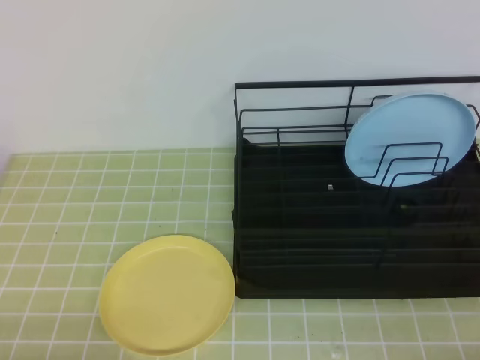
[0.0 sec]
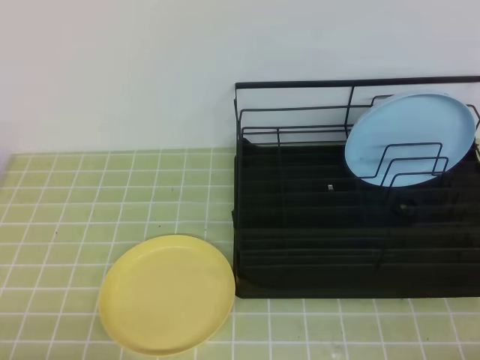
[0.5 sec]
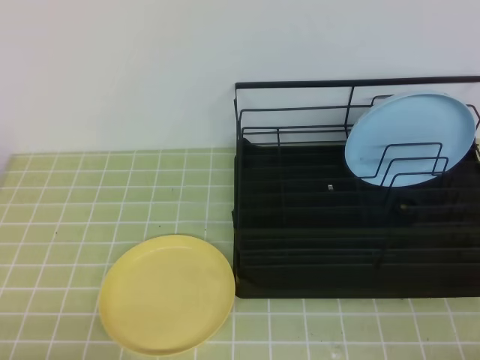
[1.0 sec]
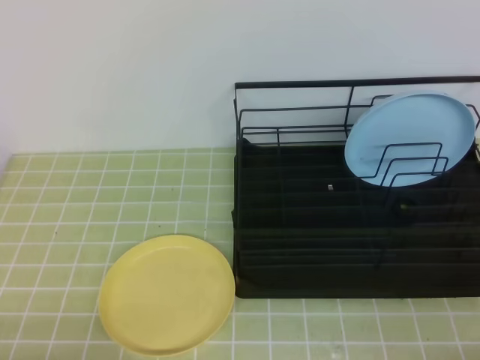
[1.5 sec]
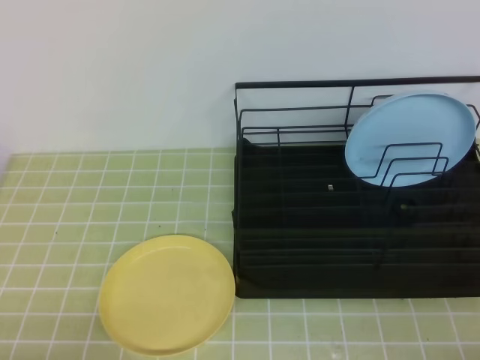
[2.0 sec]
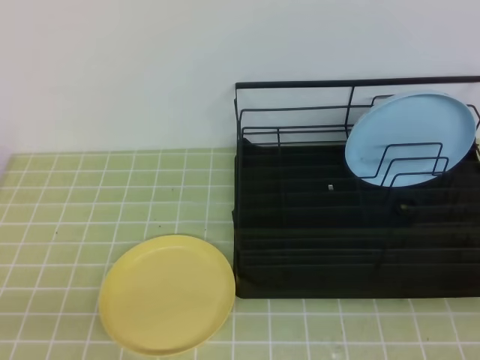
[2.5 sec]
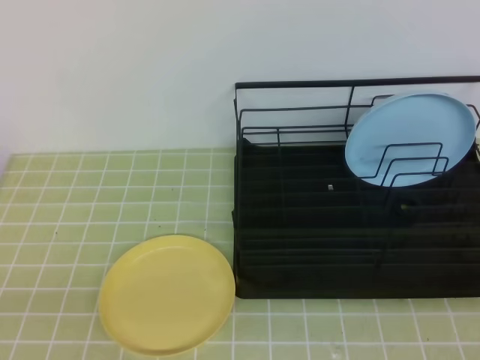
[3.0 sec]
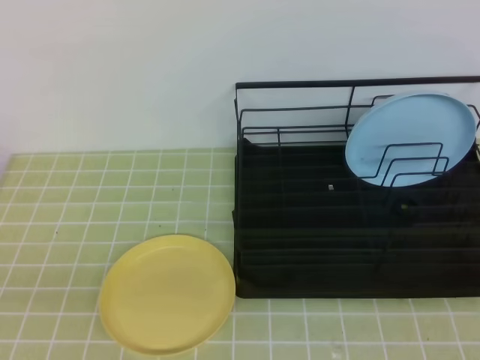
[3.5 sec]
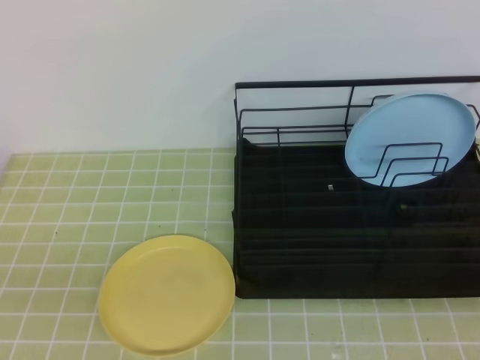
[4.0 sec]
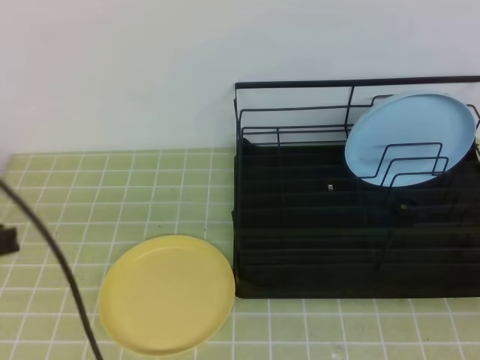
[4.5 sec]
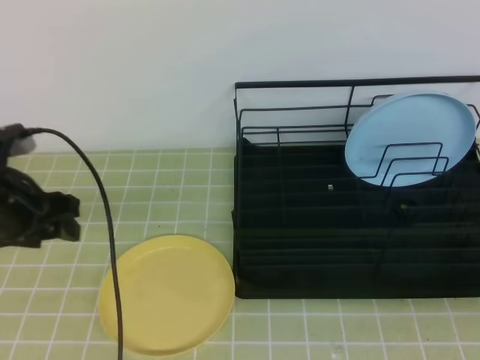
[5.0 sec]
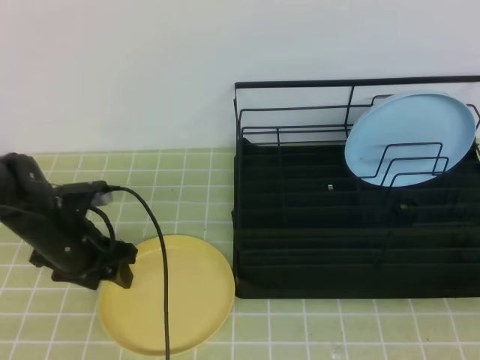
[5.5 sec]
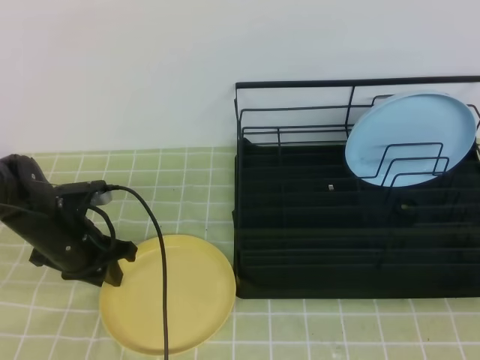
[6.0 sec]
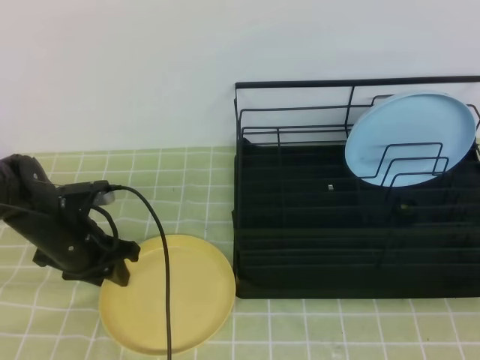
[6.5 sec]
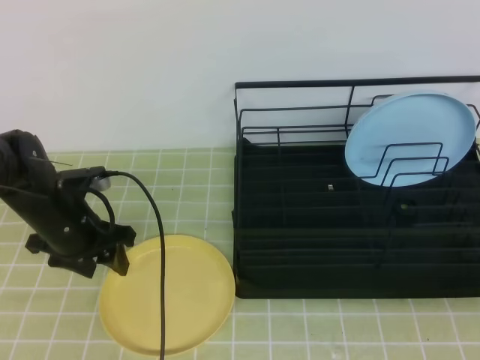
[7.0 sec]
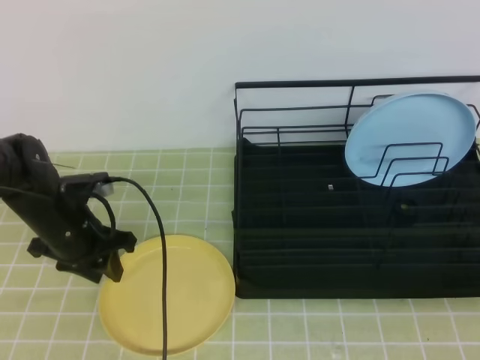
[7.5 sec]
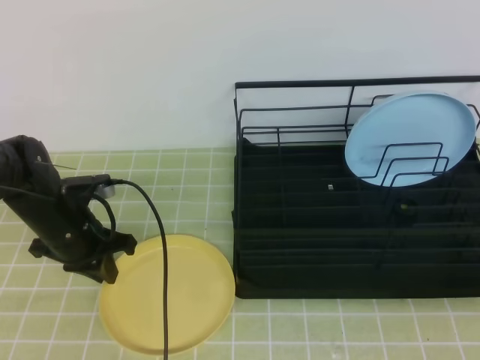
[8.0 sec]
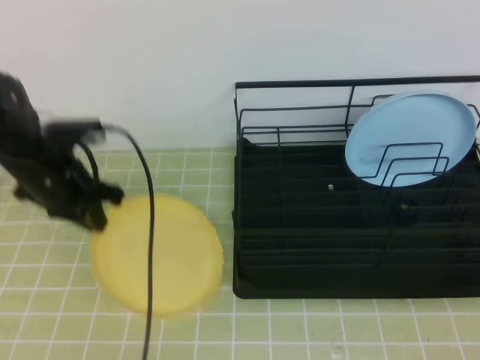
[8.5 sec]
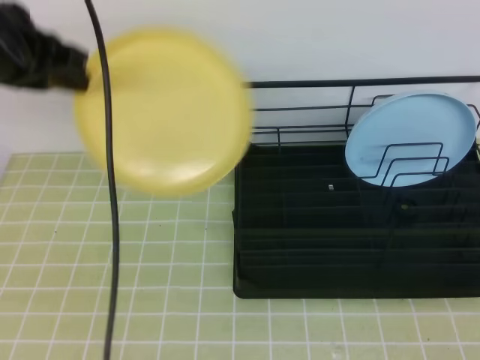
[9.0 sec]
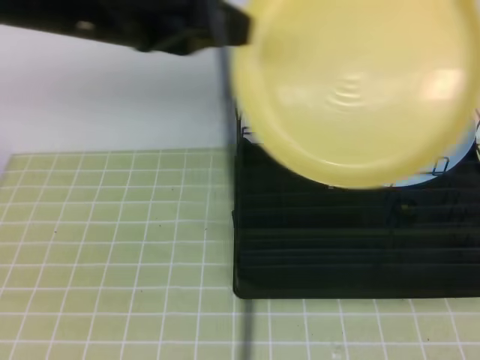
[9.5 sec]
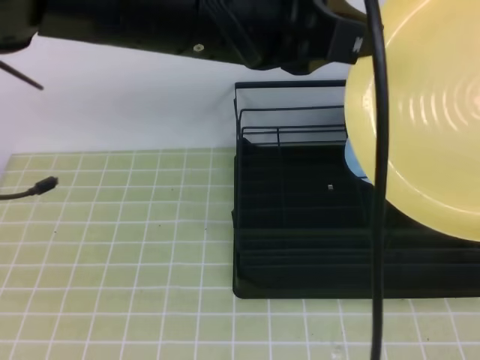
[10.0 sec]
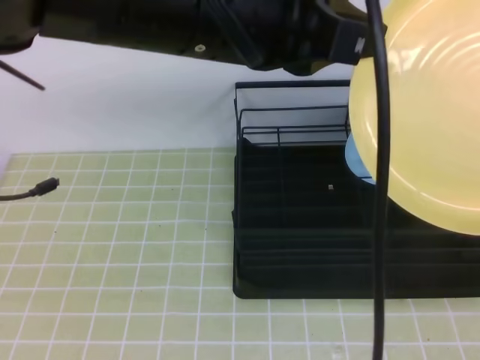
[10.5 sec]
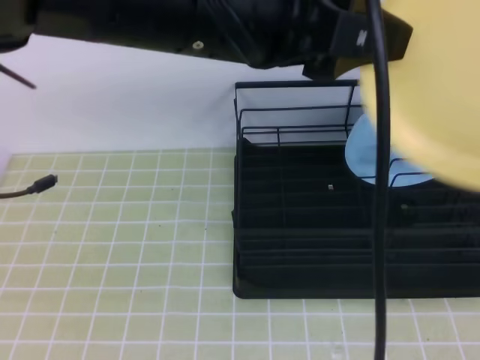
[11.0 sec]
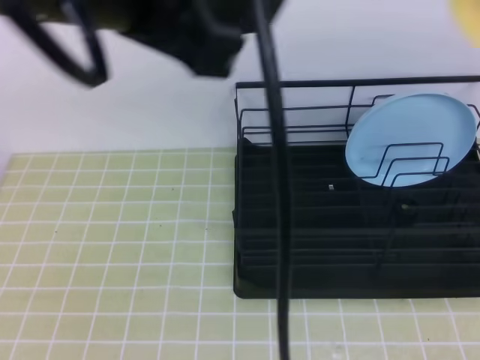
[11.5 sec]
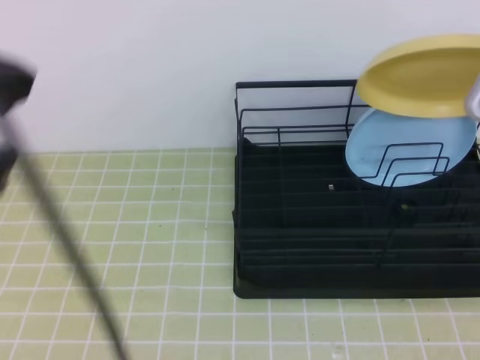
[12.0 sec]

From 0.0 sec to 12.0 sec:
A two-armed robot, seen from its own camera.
From 4.0 sec to 6.0 sec: The left gripper heads forward and downward, covering approximately 35 cm, and opens its fingers.
From 6.0 sec to 8.0 sec: The left gripper opens and closes again.
From 8.0 sec to 10.0 sec: The right gripper moves roughly 5 cm, and opens; the left gripper is displaced upward and to the right by approximately 35 cm.
From 10.0 sec to 12.0 sec: The left gripper goes approximately 20 cm to the left and backward, and opens, then closes once more; the right gripper travels forward by about 20 cm, and closes.

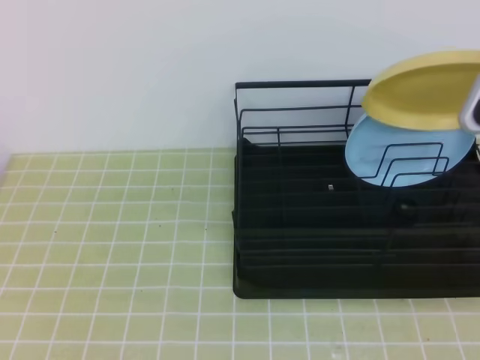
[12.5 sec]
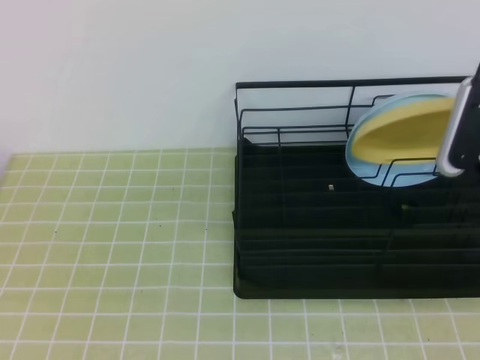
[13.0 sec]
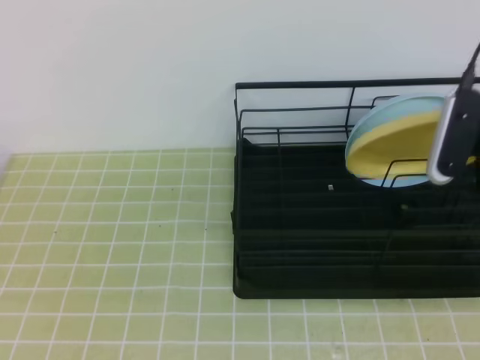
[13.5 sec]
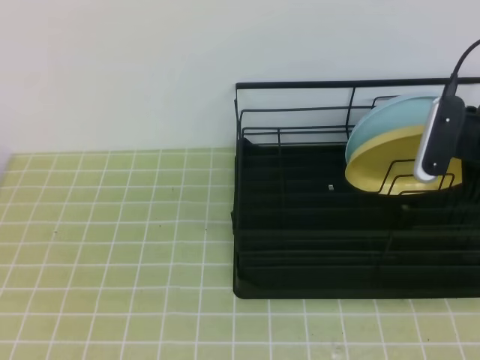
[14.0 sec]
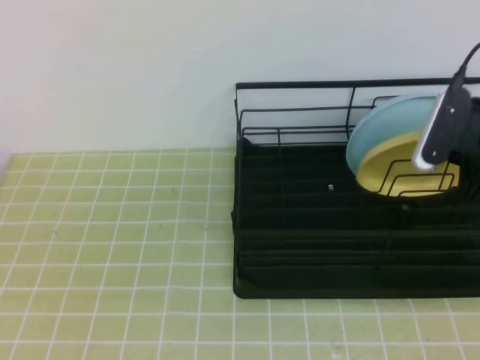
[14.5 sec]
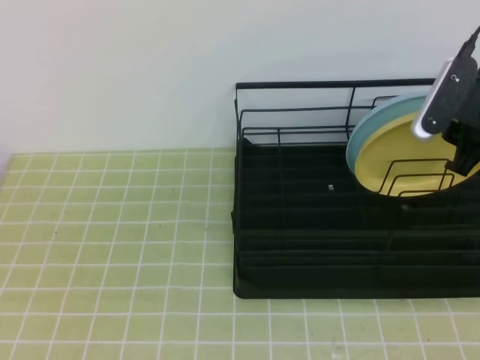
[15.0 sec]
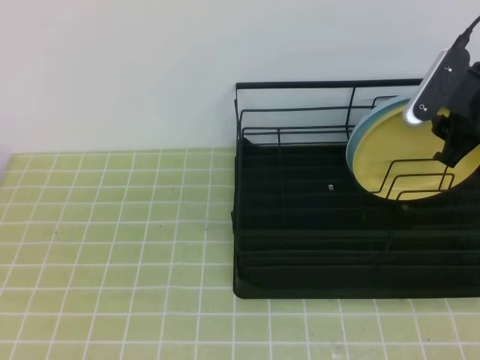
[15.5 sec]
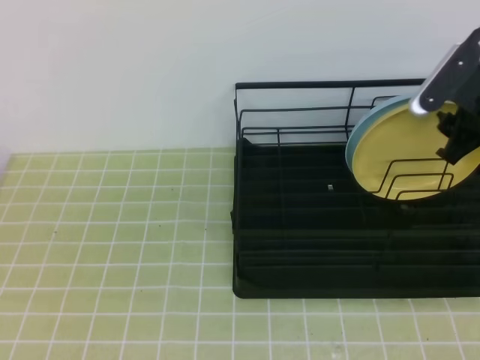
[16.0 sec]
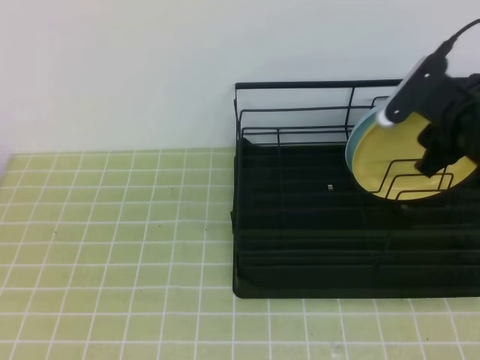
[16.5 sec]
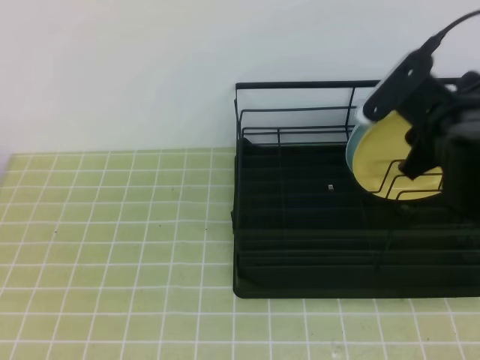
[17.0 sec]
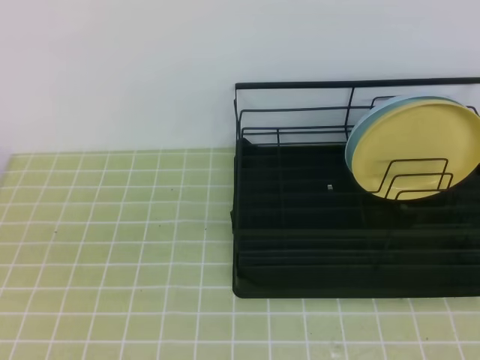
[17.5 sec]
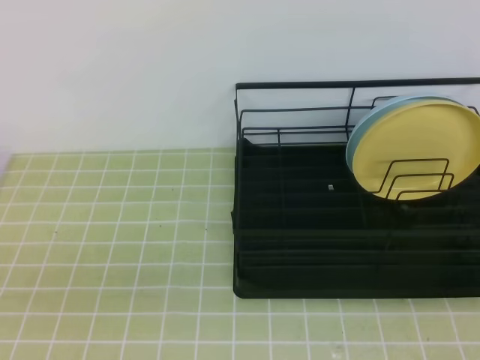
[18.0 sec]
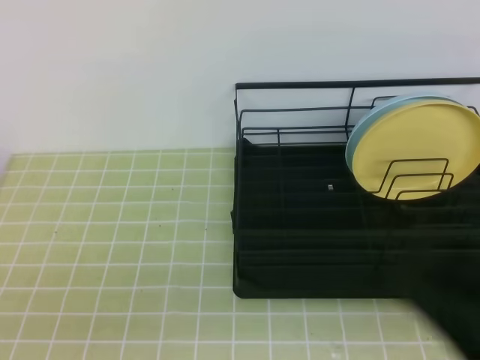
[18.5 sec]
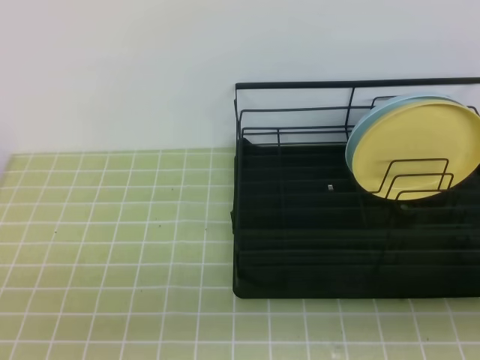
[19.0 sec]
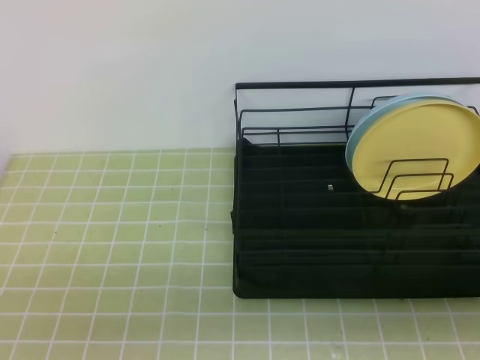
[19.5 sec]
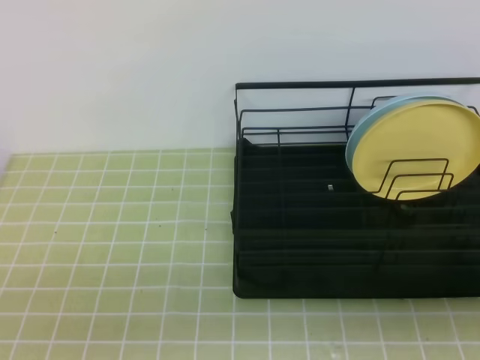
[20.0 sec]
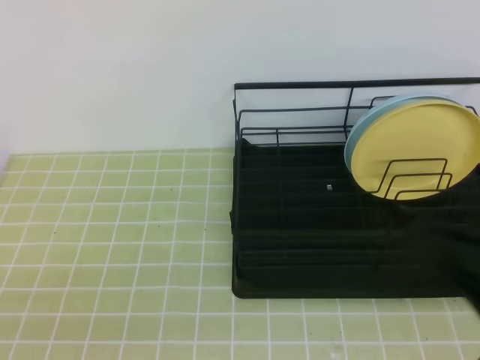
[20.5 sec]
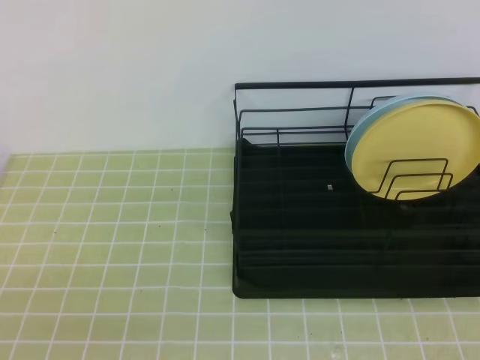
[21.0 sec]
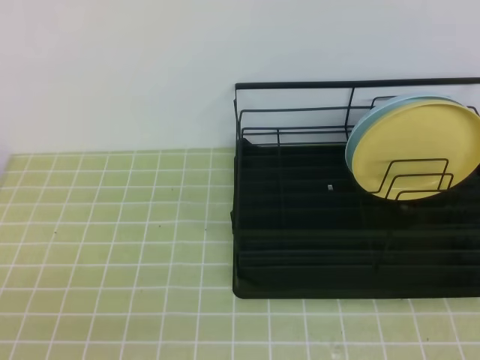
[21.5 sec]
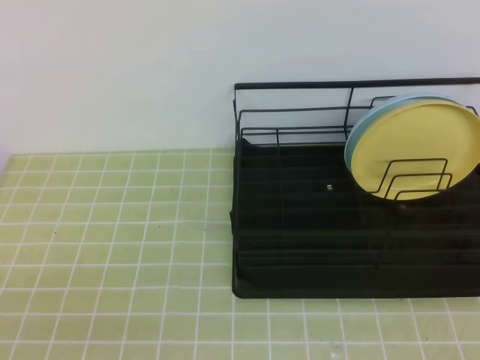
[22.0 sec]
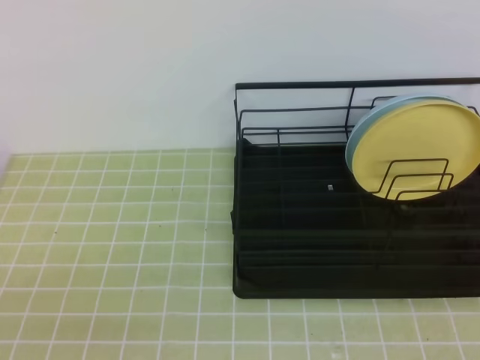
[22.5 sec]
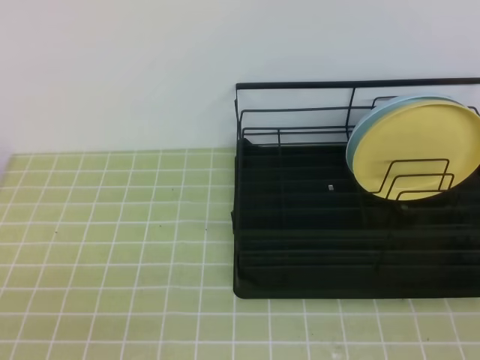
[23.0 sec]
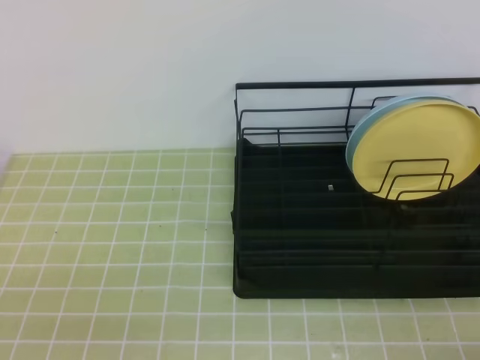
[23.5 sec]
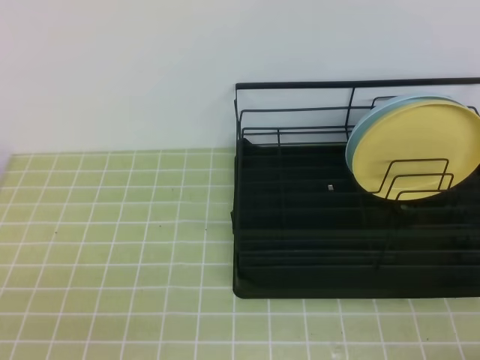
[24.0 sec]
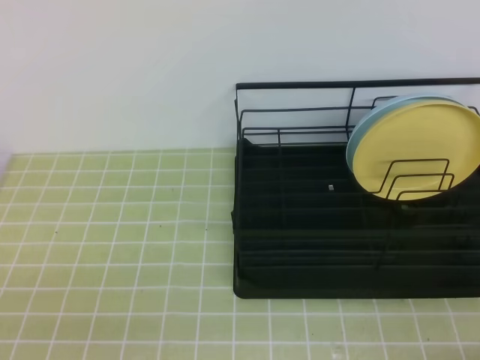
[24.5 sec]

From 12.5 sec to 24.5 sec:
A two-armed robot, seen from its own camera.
From 12.5 sec to 14.5 sec: The right gripper is displaced downward by approximately 10 cm, and opens its fingers.
From 16.5 sec to 18.5 sec: The right gripper moves backward, some 30 cm, and closes its fingers.
From 18.5 sec to 20.5 sec: The right gripper moves about 5 cm.
From 20.5 sec to 22.5 sec: The right gripper goes roughly 15 cm to the right and backward.
